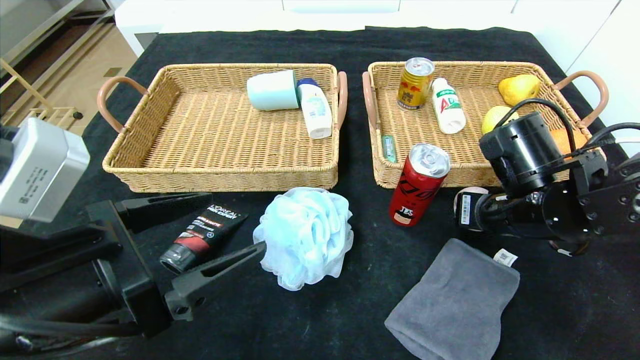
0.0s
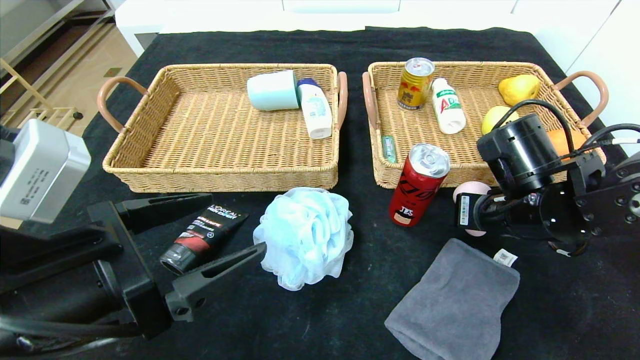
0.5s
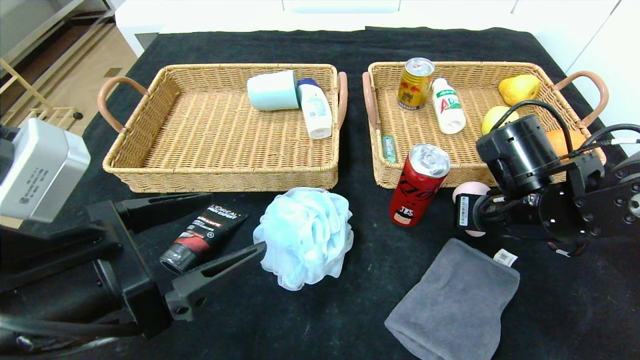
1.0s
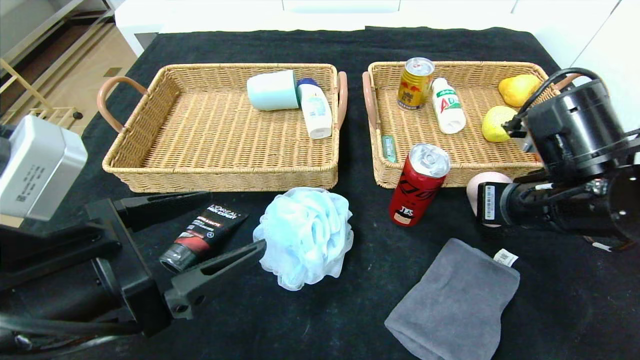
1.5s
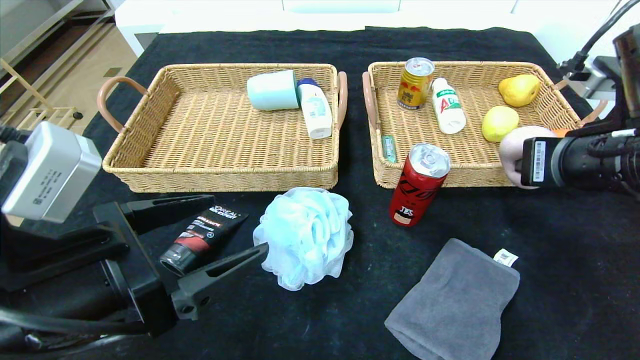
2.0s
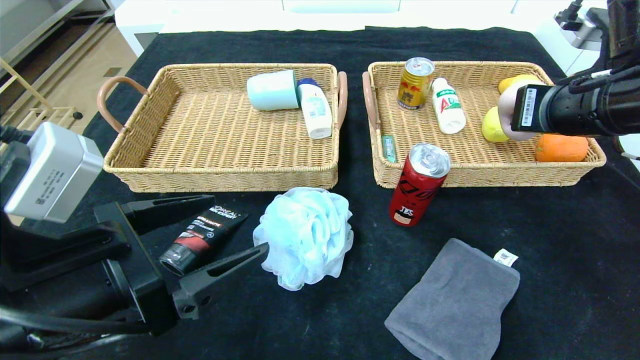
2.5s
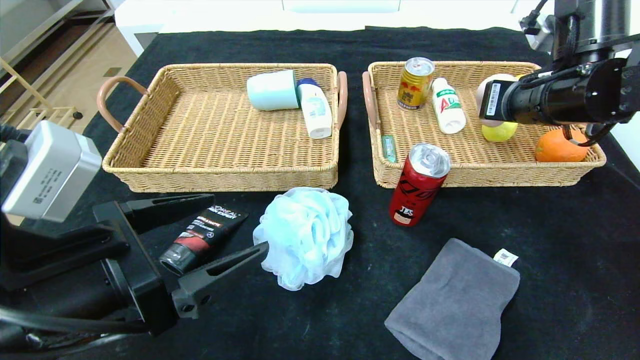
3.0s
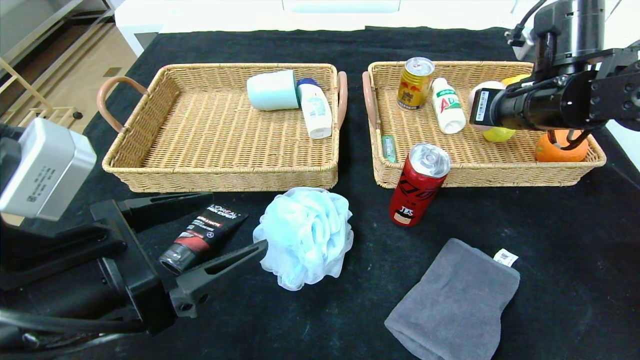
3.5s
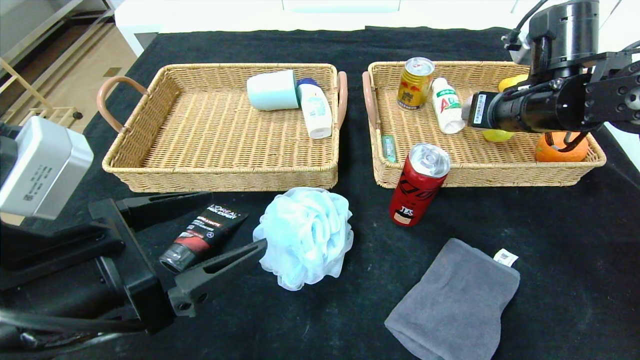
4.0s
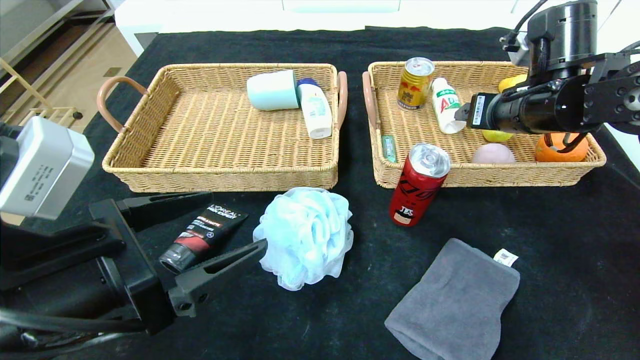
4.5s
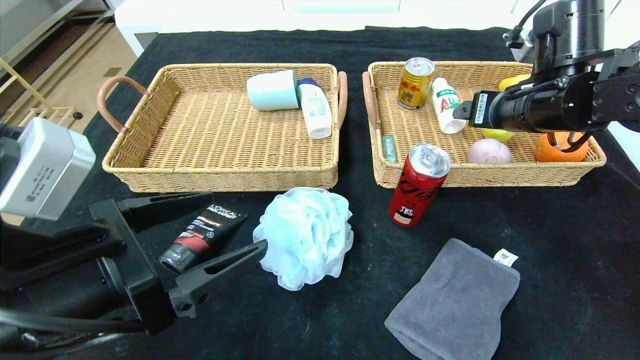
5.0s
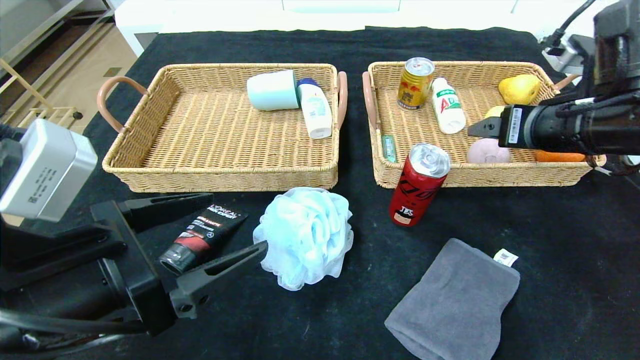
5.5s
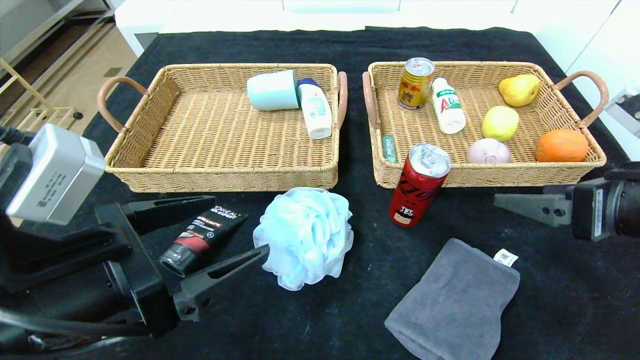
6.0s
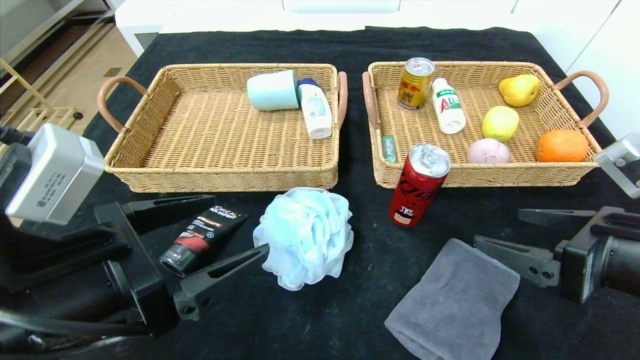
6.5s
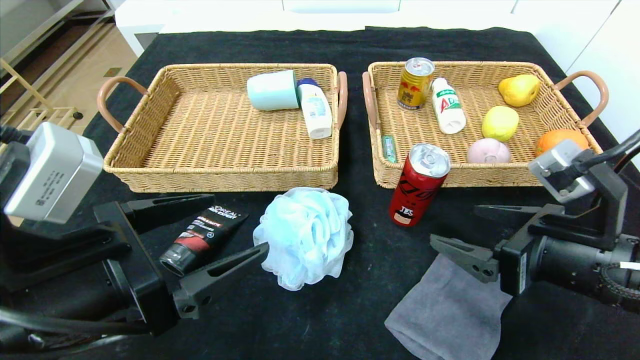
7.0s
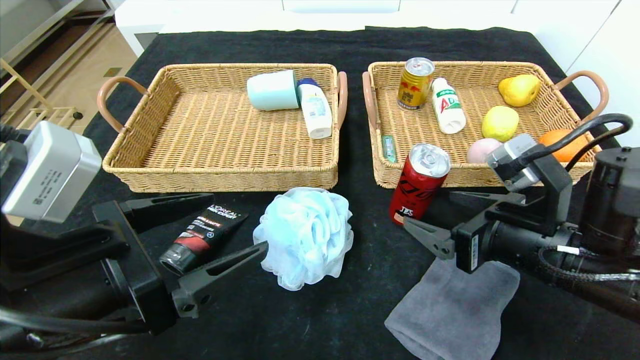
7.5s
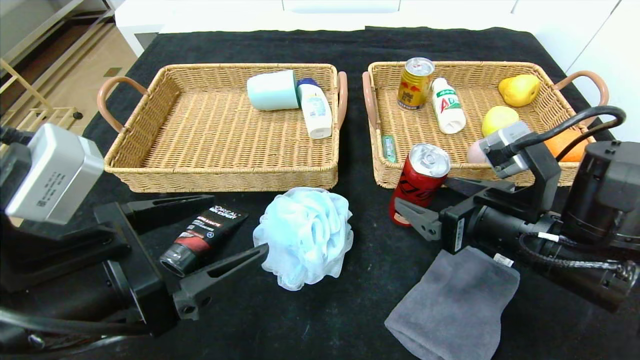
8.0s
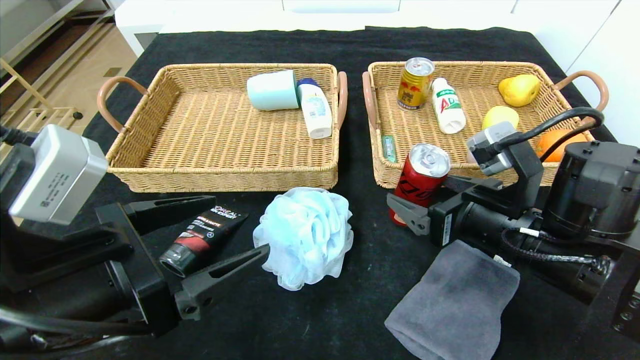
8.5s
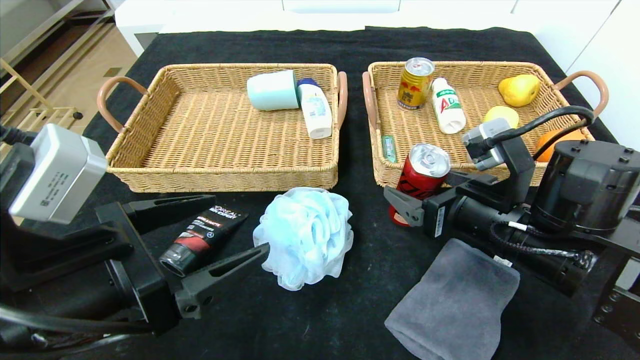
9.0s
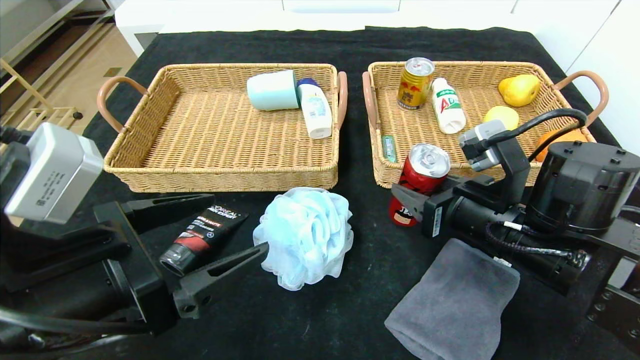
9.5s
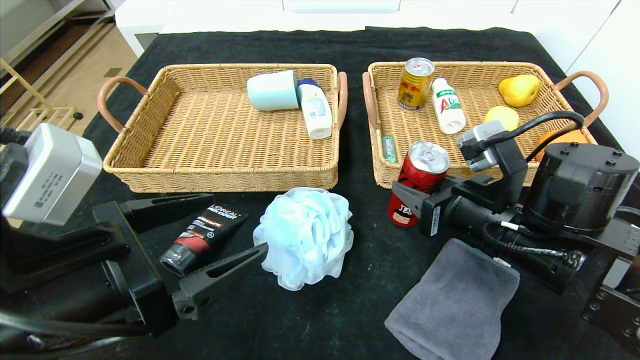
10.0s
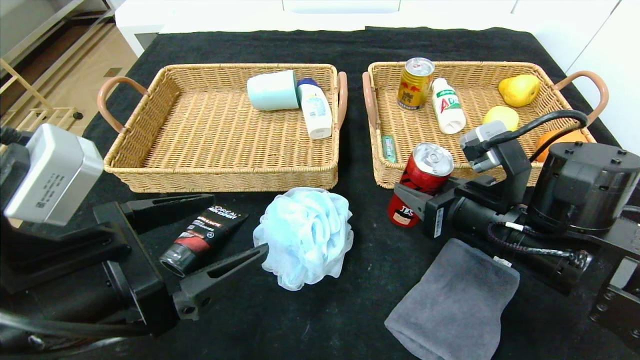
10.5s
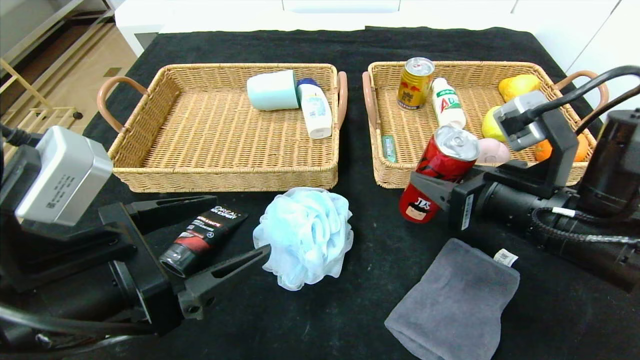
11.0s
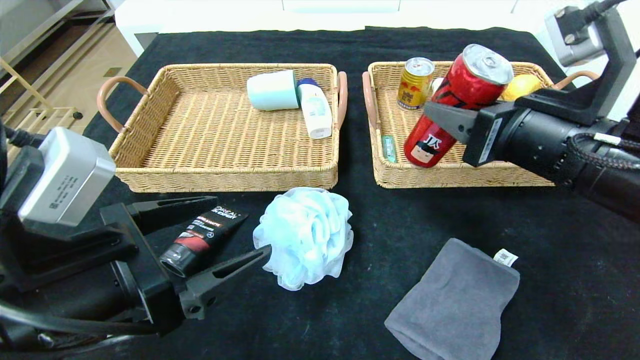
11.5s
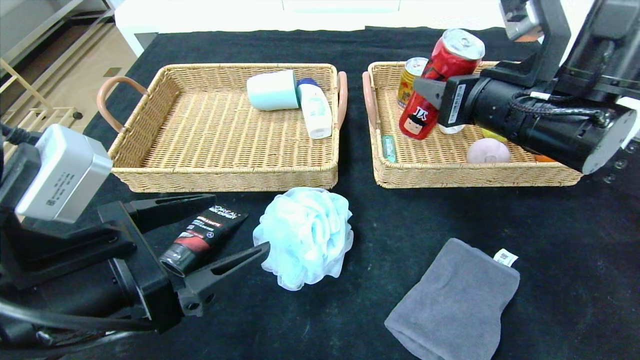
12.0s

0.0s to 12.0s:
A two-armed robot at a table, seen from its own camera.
Step, 0.0s to 4.0s: Grasp the peach and put it in the right basket.
0.0s to 2.0s: The right gripper travels upward and backward by approximately 10 cm, and closes its fingers.
2.0s to 4.0s: The right gripper is displaced forward by about 15 cm, and opens up.
4.0s to 6.0s: The right gripper is displaced backward by some 15 cm, and opens its fingers.
6.0s to 8.0s: The right gripper travels to the left and downward by approximately 10 cm.
8.0s to 10.0s: The right gripper closes its fingers.
10.0s to 12.0s: The right gripper is displaced upward by approximately 10 cm.

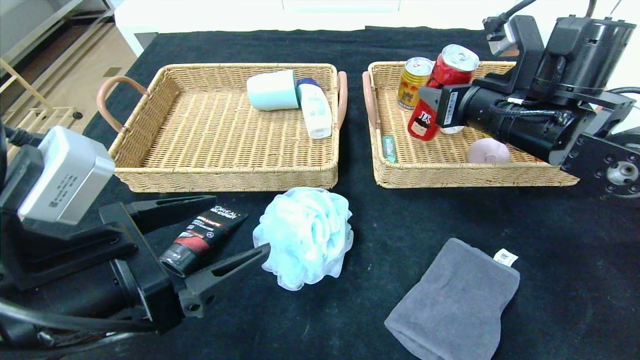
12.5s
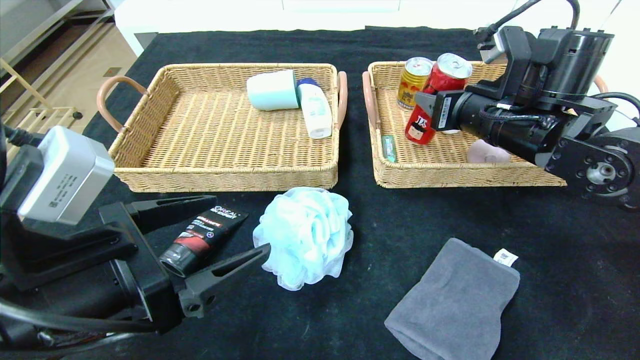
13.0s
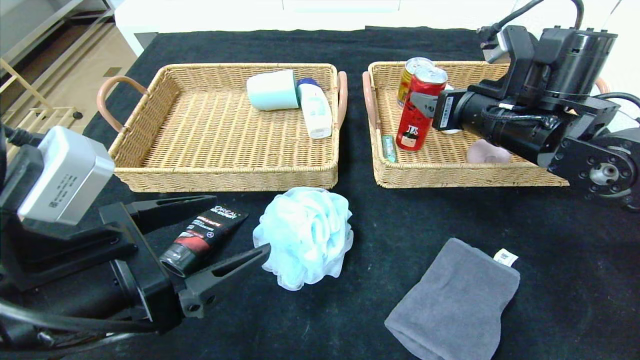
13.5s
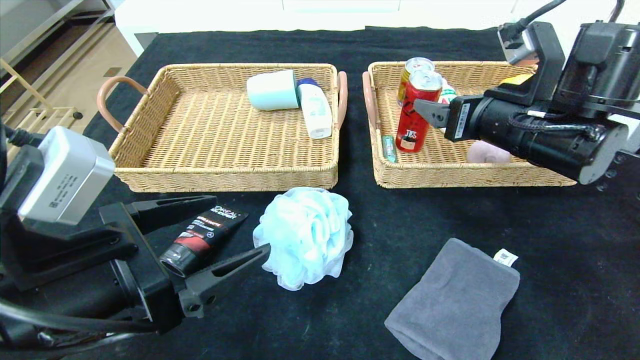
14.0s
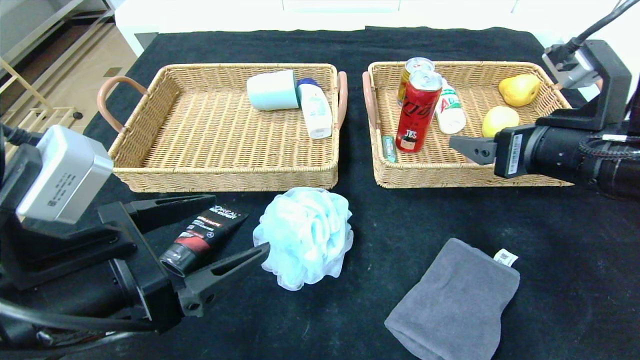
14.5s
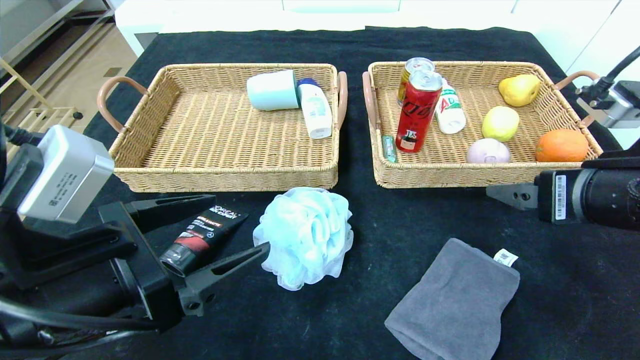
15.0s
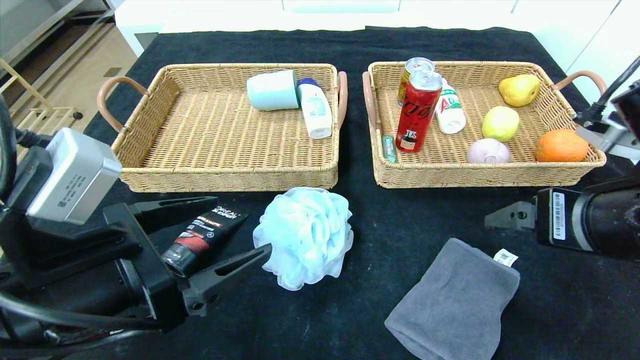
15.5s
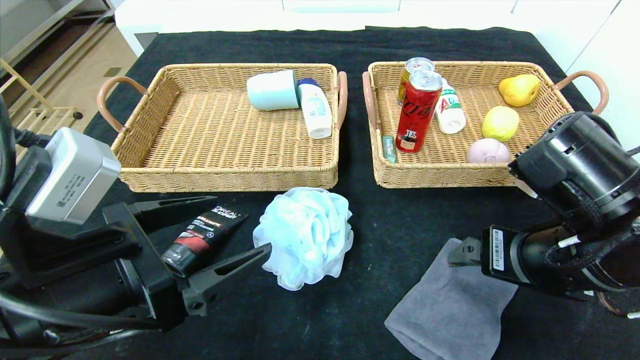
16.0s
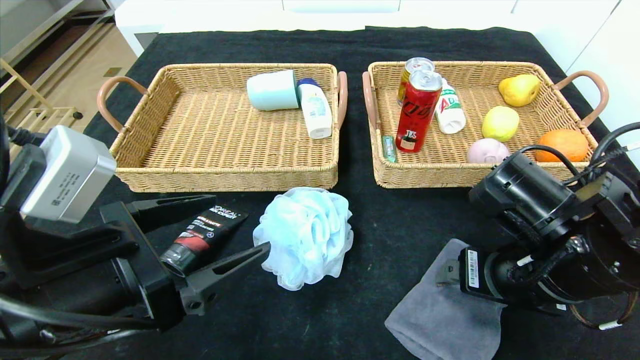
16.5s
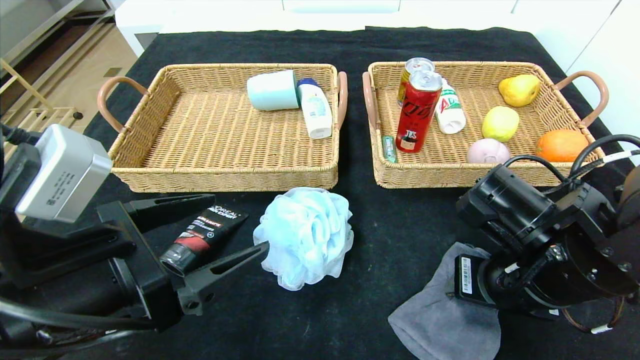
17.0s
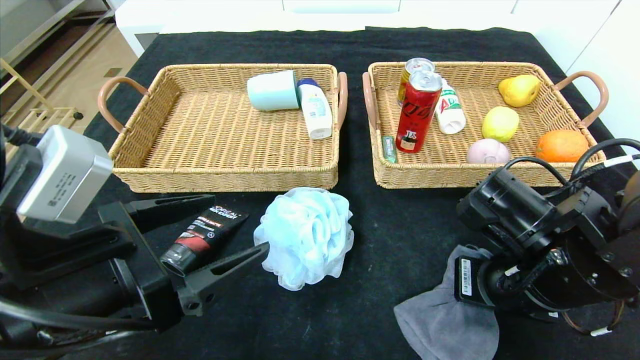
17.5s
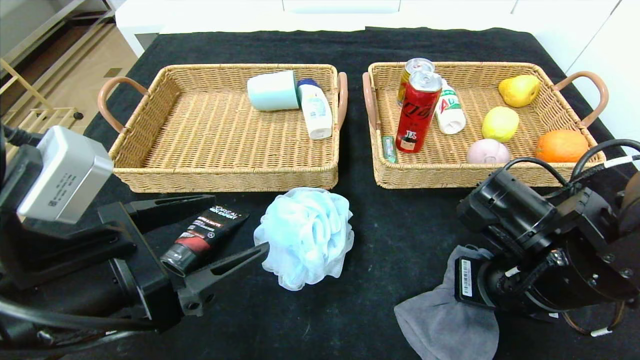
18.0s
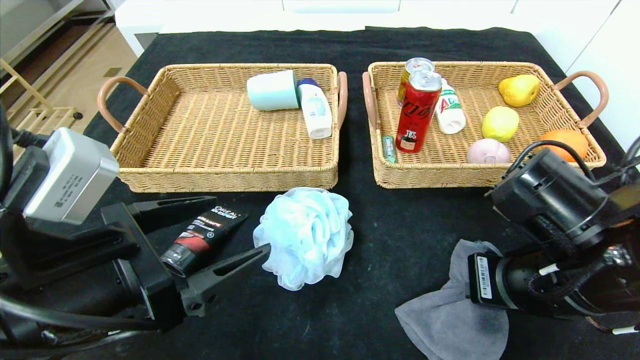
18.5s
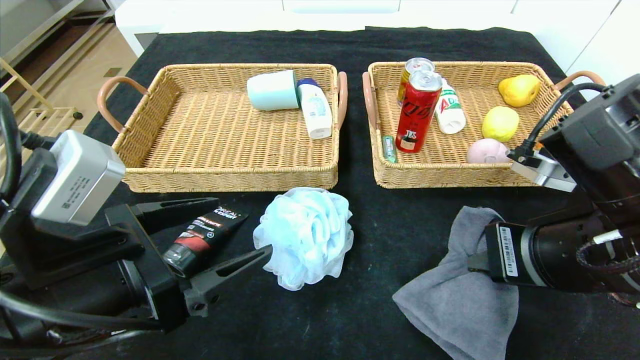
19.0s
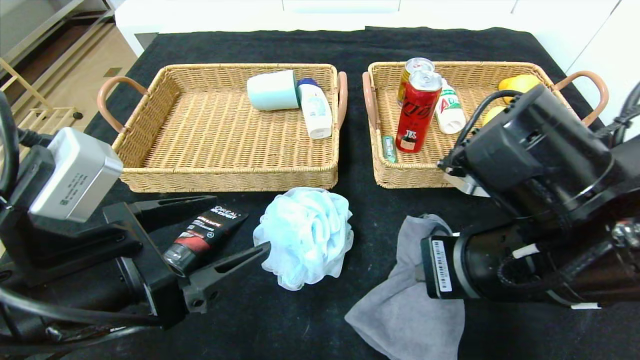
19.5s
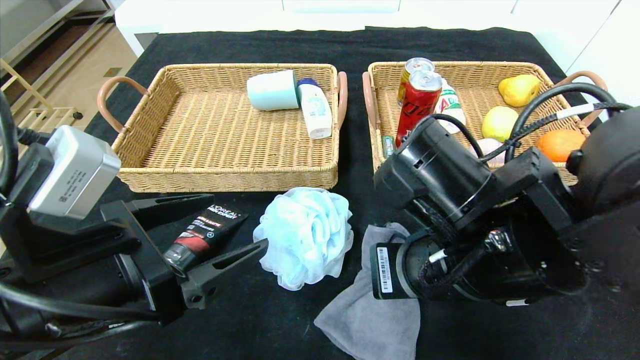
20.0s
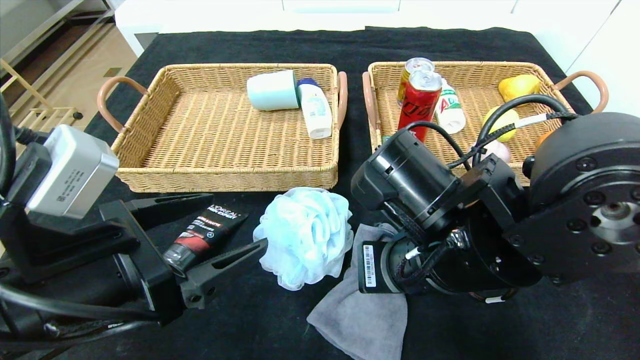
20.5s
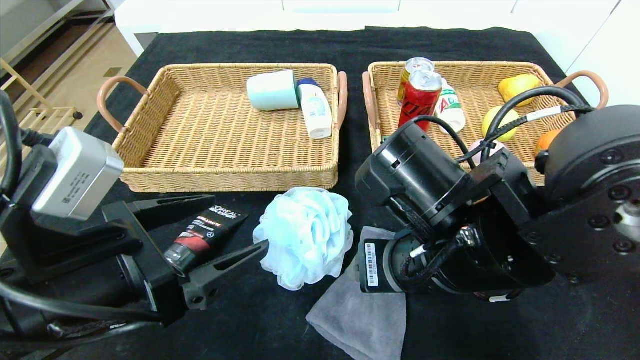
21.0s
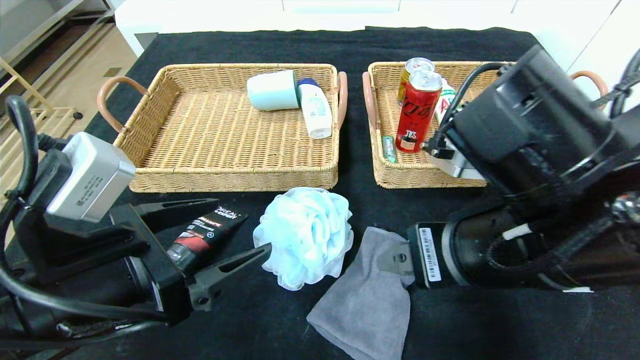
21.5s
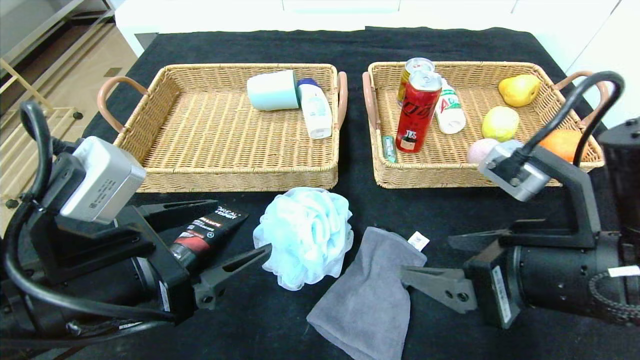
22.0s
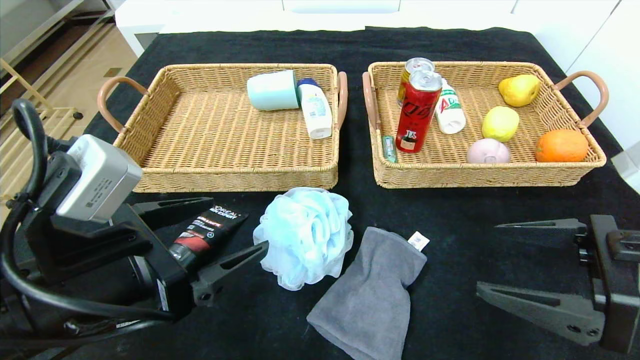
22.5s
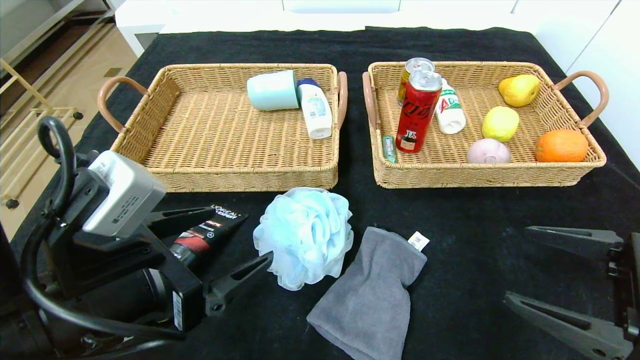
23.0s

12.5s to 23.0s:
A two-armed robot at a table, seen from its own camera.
Step, 13.5s to 21.5s: Place the gray towel in the center of the table.
12.5s to 14.5s: The right gripper moves backward, some 10 cm, and opens.
14.5s to 16.5s: The right gripper travels downward by some 10 cm.
16.5s to 19.0s: The right gripper is displaced upward by some 5 cm, and closes.
19.0s to 21.0s: The right gripper shifts some 10 cm to the left, and opens.
21.0s to 23.0s: The right gripper goes some 20 cm to the right.
